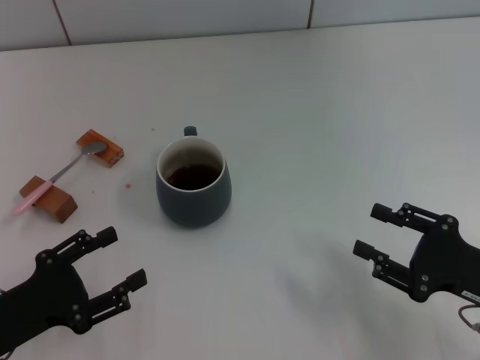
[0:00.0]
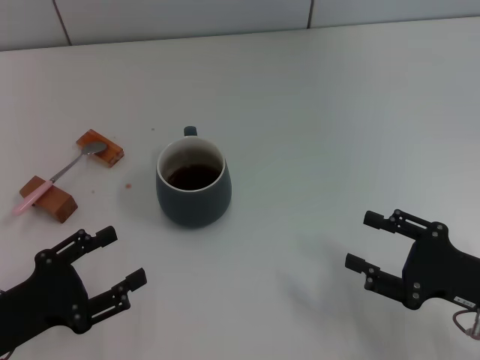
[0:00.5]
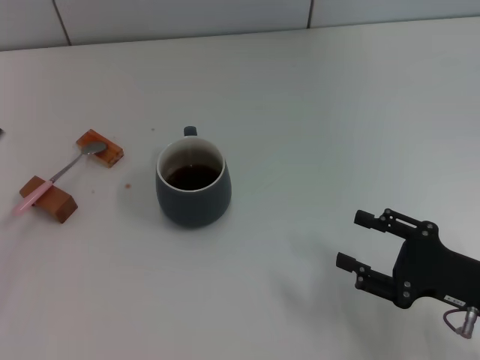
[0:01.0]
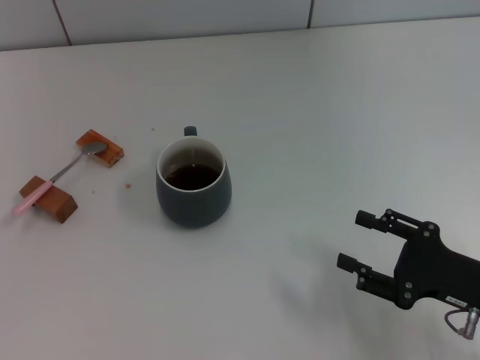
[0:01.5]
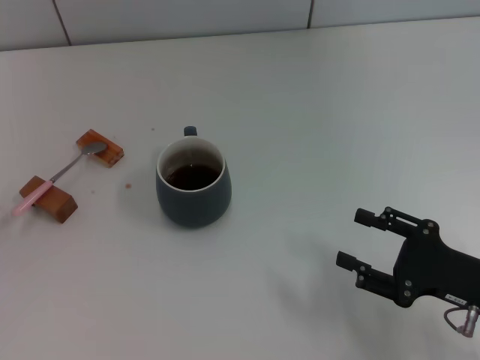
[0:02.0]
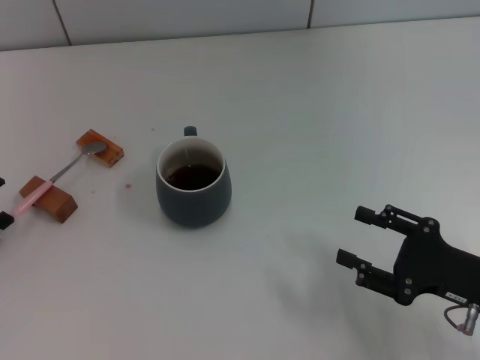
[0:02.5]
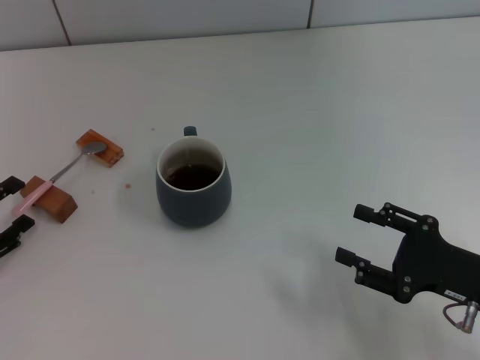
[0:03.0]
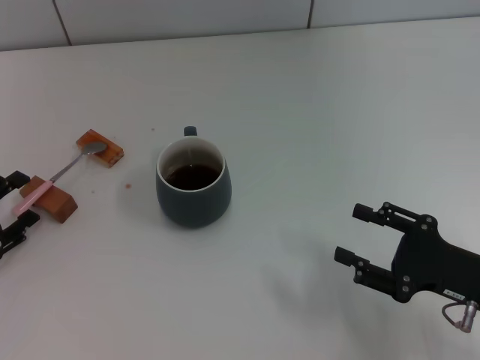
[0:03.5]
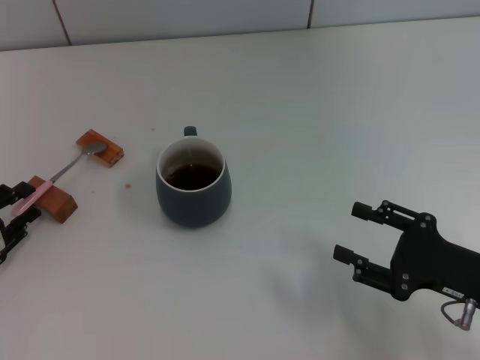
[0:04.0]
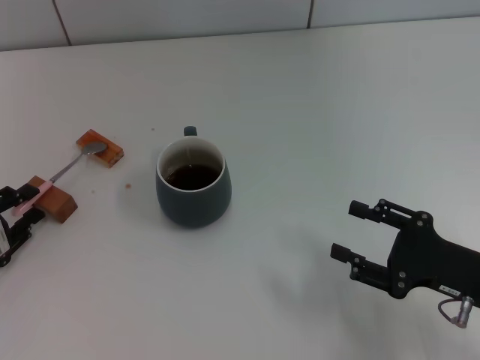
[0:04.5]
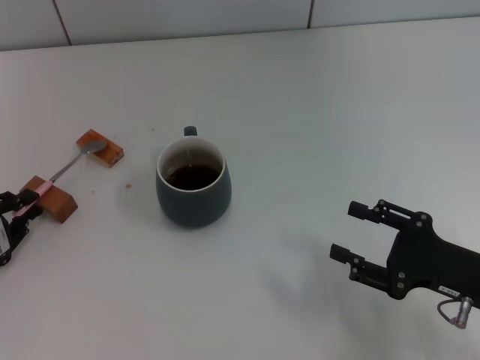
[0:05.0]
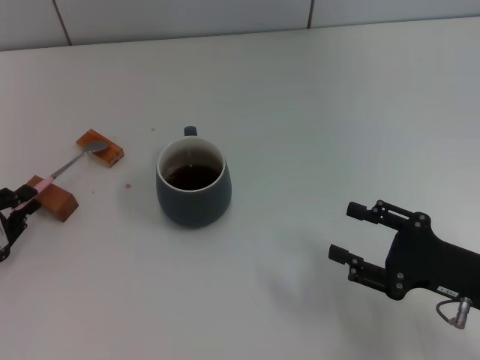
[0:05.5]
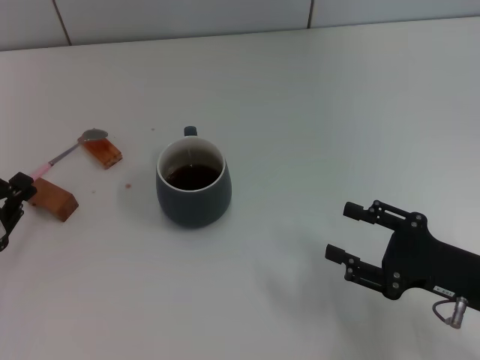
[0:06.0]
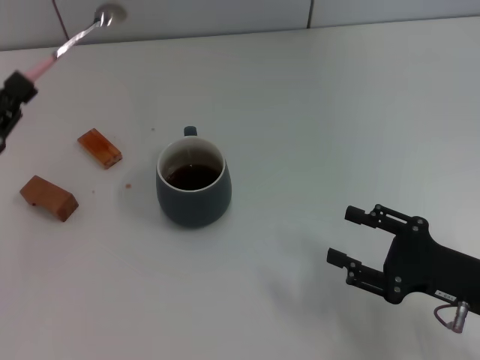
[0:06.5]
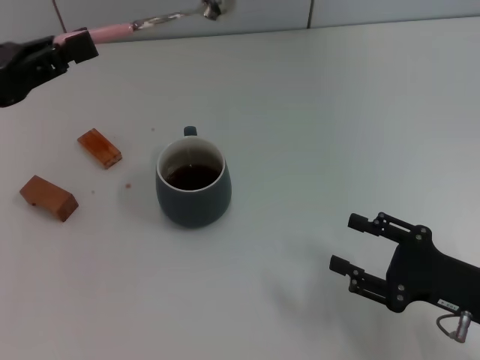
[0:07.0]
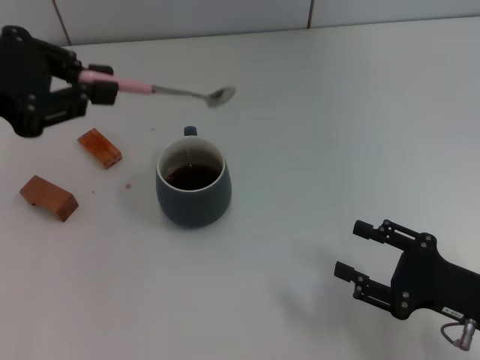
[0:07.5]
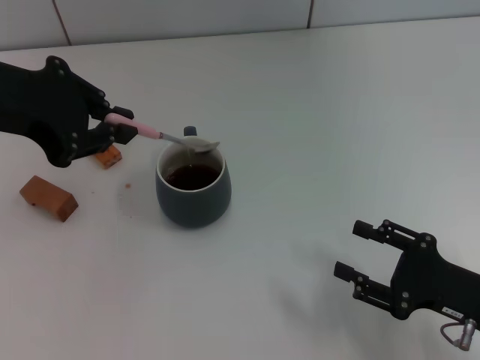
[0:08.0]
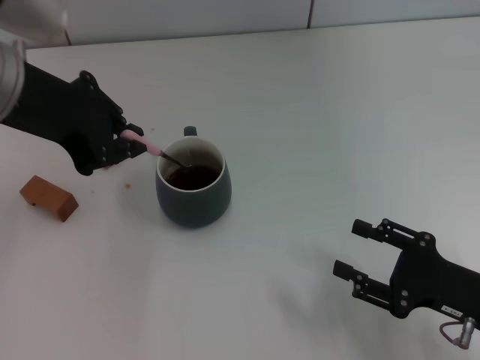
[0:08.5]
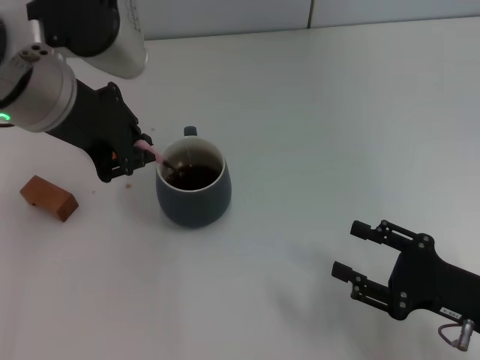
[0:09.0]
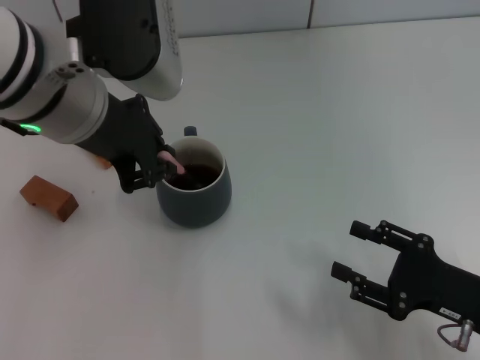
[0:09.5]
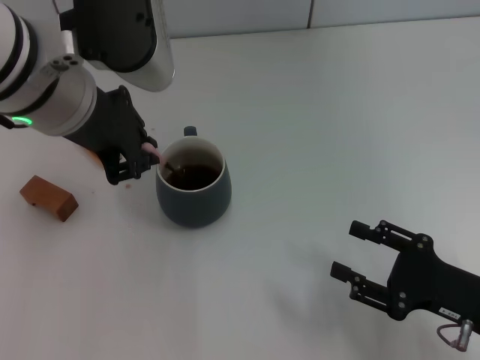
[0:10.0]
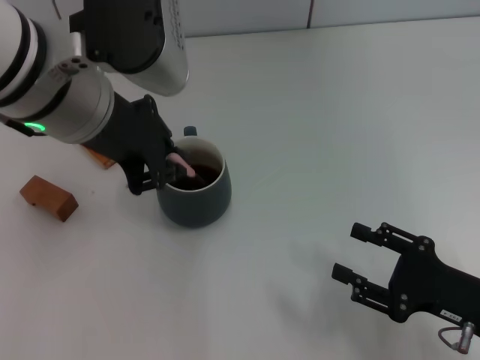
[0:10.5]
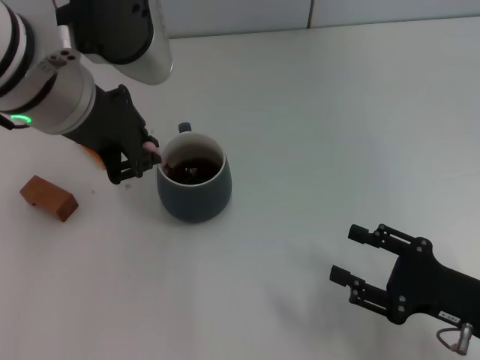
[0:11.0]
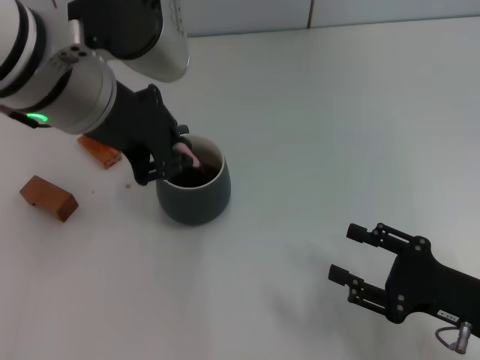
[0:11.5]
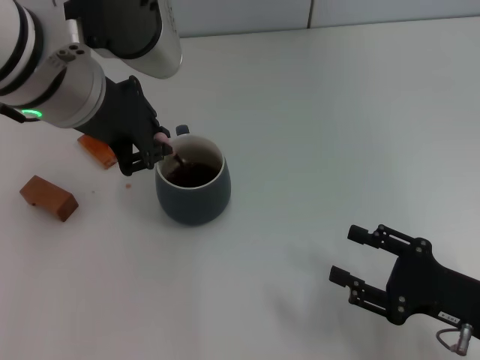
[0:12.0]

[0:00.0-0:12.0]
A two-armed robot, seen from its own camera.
Task of the whole recording: Move the grey cup to the center, lift the pink spoon, stir it three times in the cup, and put the spoon into the cup.
Step, 0:00.0 to 0:05.5: Pick up the spoon with the left gripper.
0:00.0 to 0:02.0: The left gripper heads to the left, covering roughly 10 cm. Meanwhile the right gripper opens.
0:02.0 to 0:04.0: The grippers stay close to where they were, moving slightly.
0:04.0 to 0:06.0: The left gripper closes.
0:06.0 to 0:08.0: The left gripper goes approximately 25 cm upward and to the right.
0:08.0 to 0:10.0: The left gripper is displaced to the right by roughly 10 cm.
0:10.0 to 0:12.0: There are only small adjustments of the grippers.

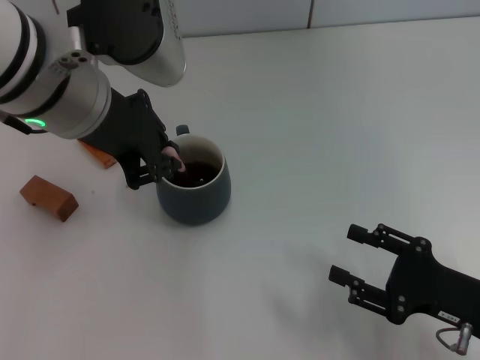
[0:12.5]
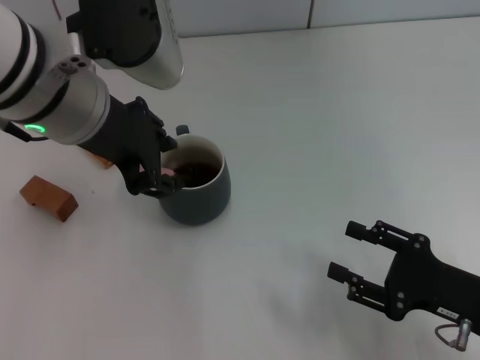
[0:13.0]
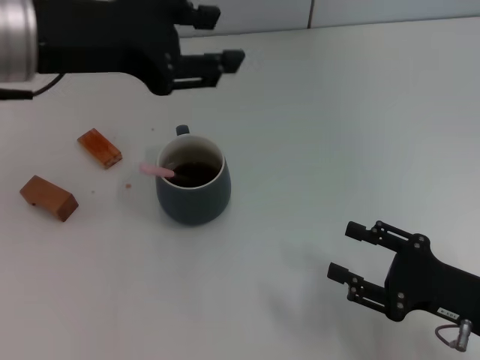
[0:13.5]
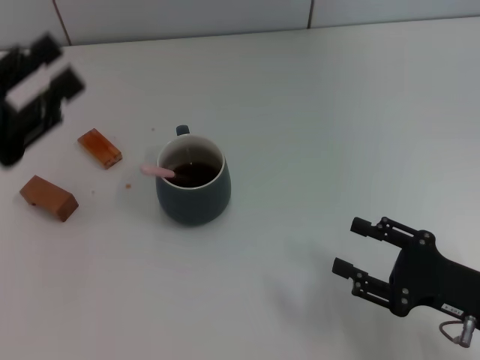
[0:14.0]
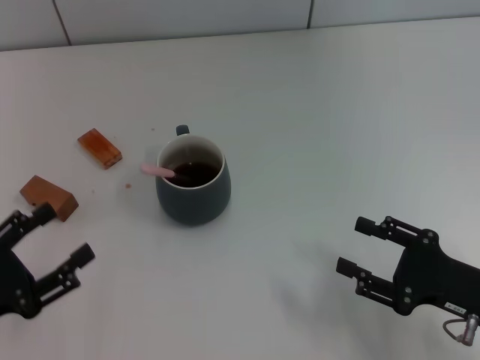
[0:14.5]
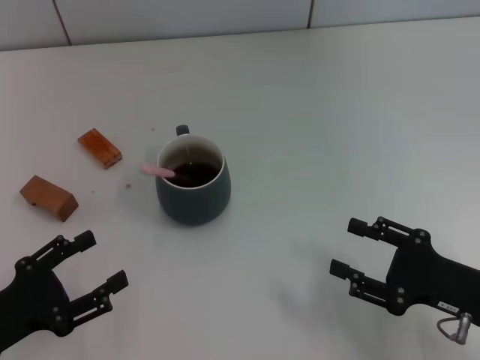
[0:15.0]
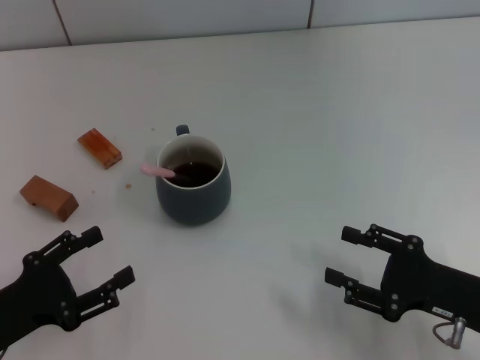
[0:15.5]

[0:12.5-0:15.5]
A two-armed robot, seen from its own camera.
Task of the whole recording: Move the grey cup to the center, lift the pink spoon, stir it three times in the cup, and put the spoon into the cup.
0:12.5 to 0:14.0: The left gripper travels to the left and downward by some 20 cm, and opens its fingers.
0:14.0 to 0:15.5: The left gripper travels downward and backward by some 15 cm.
